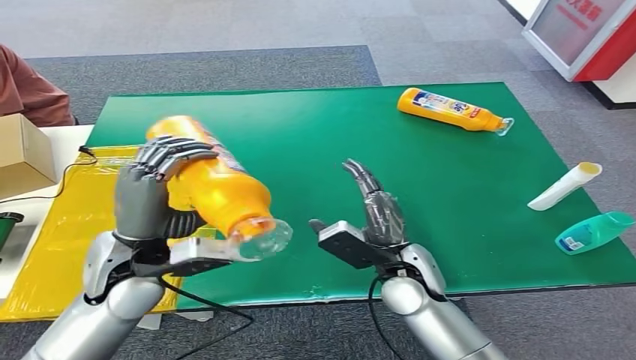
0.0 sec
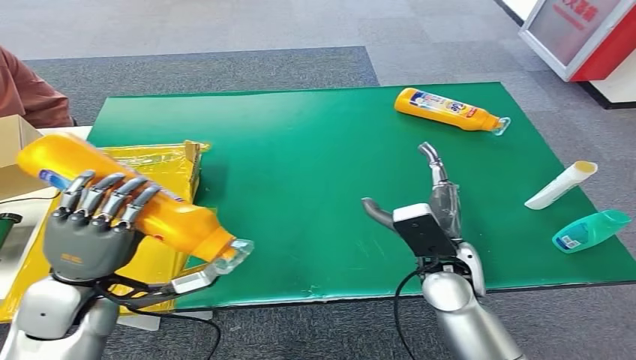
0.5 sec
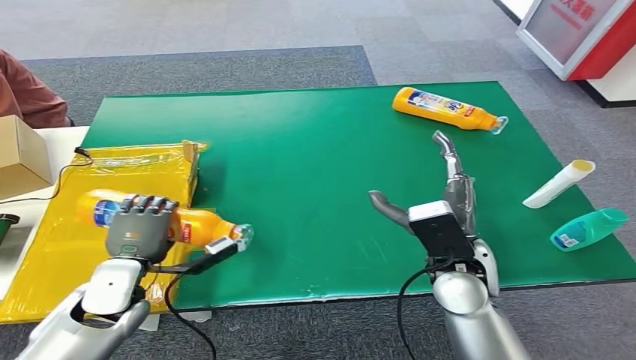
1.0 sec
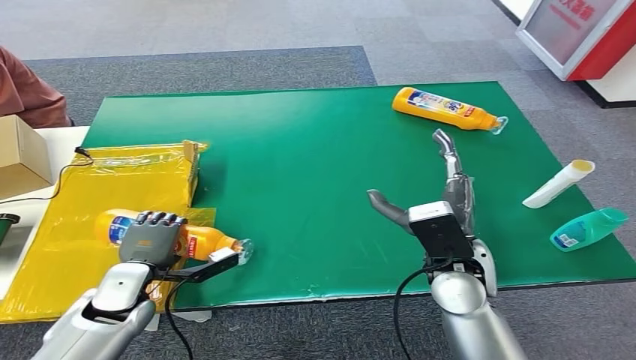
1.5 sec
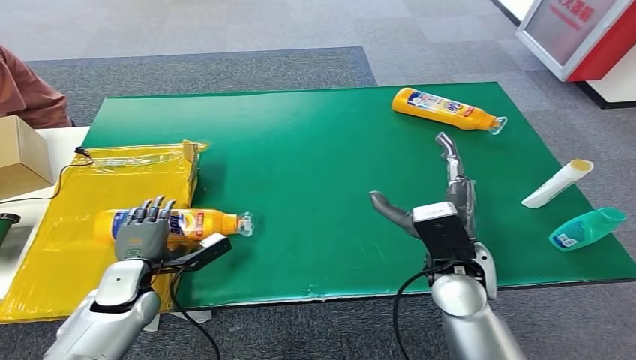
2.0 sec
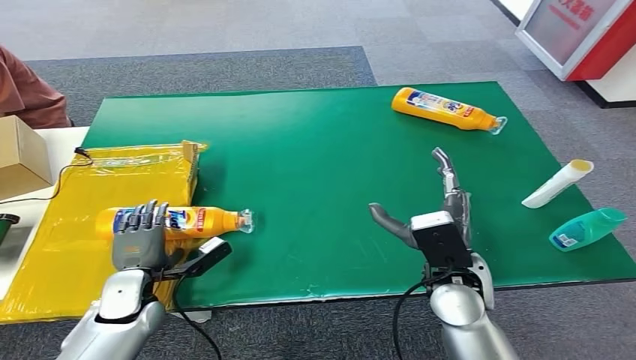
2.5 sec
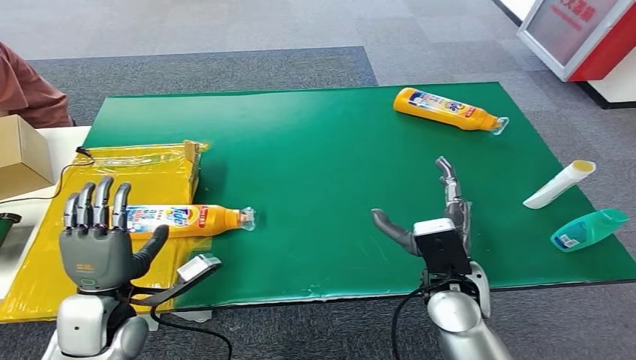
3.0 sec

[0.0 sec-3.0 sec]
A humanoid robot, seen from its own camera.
Step, 0.0 sec to 3.0 sec: Turn the bottle to the front side.
1.5 sec to 3.0 sec: The left hand moves backward and upward, about 10 cm.
